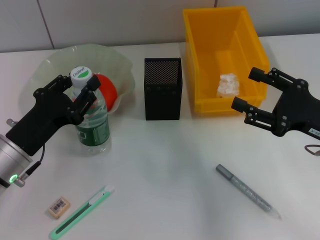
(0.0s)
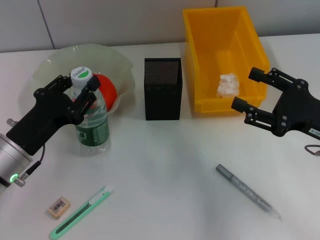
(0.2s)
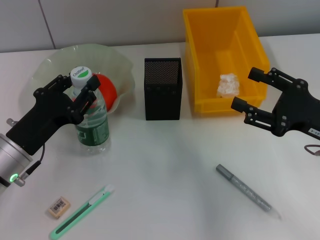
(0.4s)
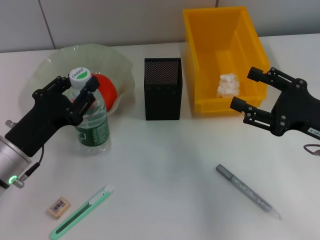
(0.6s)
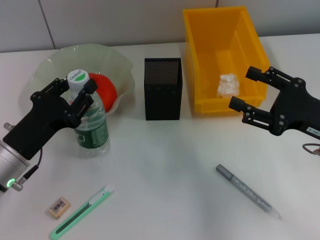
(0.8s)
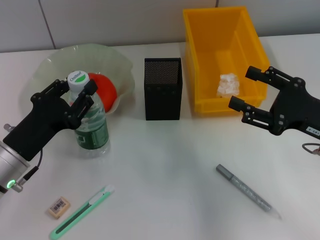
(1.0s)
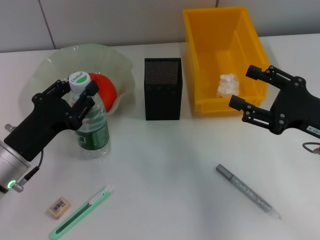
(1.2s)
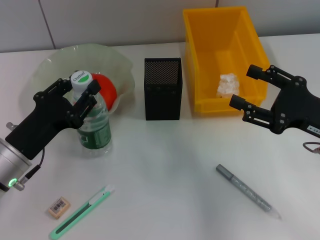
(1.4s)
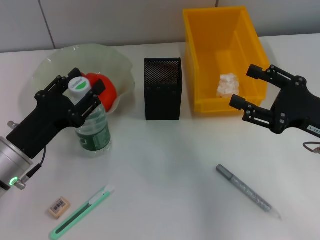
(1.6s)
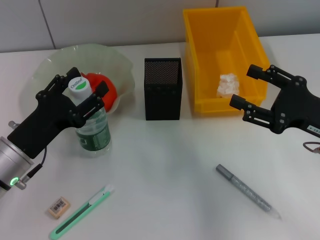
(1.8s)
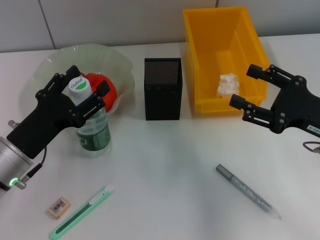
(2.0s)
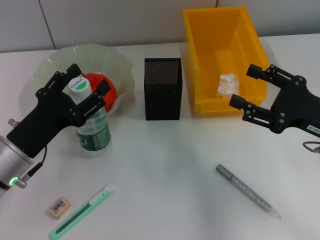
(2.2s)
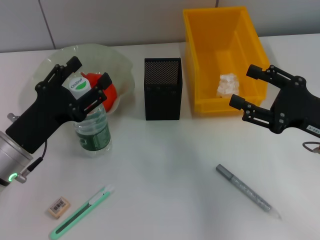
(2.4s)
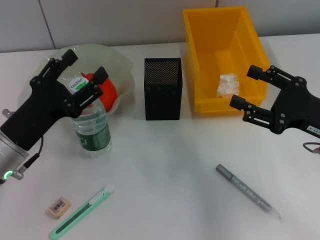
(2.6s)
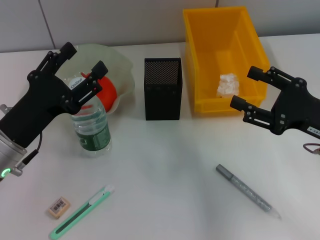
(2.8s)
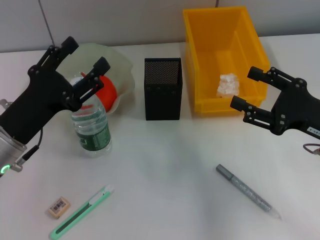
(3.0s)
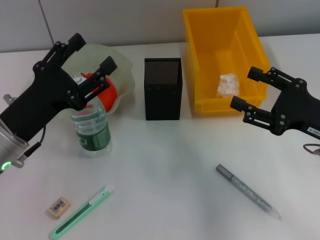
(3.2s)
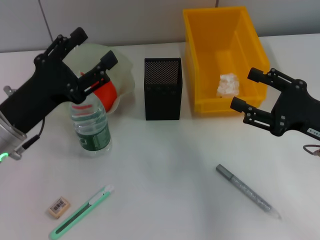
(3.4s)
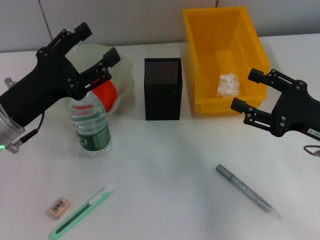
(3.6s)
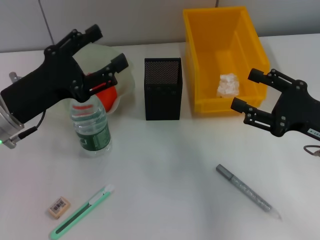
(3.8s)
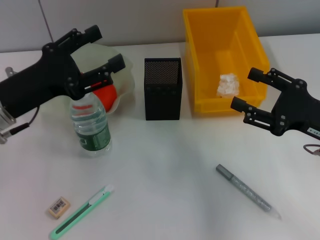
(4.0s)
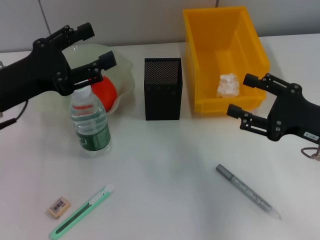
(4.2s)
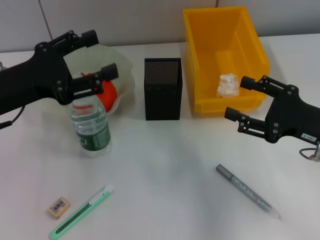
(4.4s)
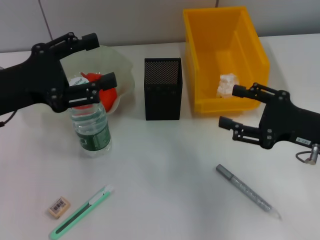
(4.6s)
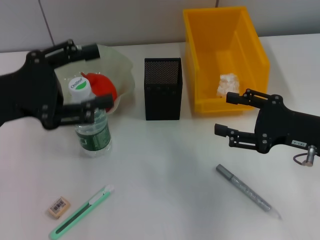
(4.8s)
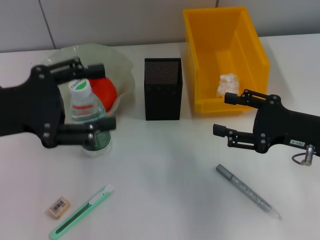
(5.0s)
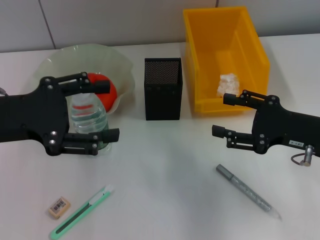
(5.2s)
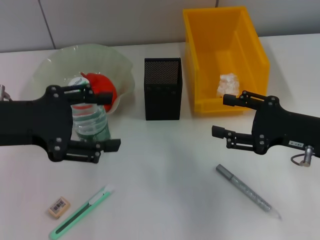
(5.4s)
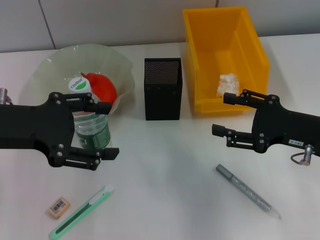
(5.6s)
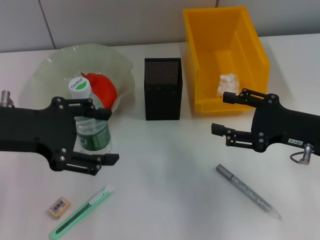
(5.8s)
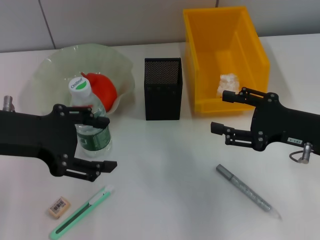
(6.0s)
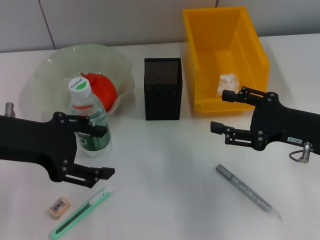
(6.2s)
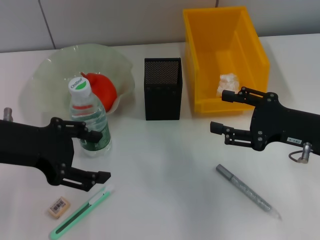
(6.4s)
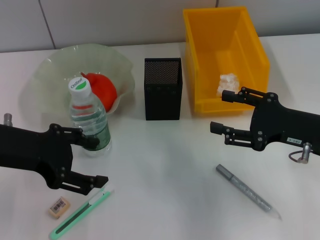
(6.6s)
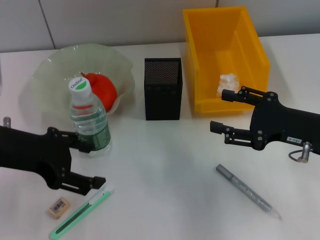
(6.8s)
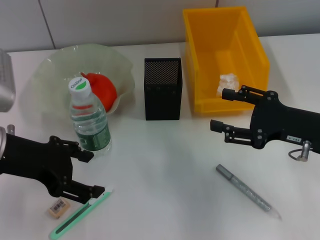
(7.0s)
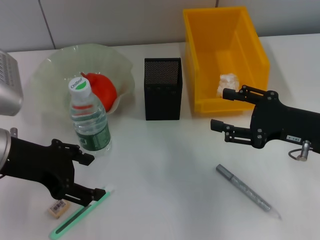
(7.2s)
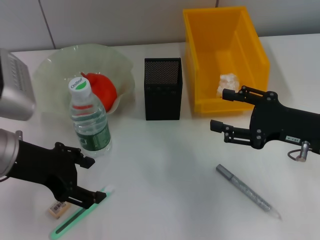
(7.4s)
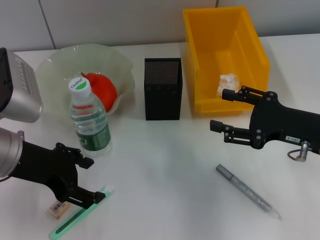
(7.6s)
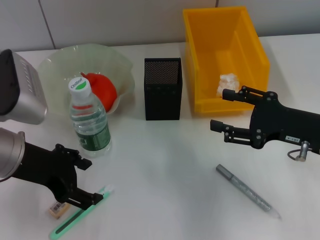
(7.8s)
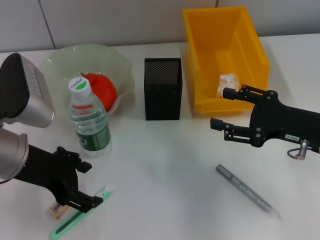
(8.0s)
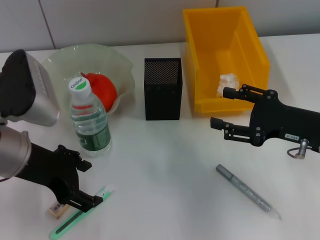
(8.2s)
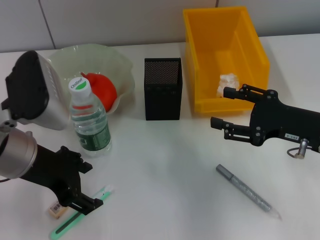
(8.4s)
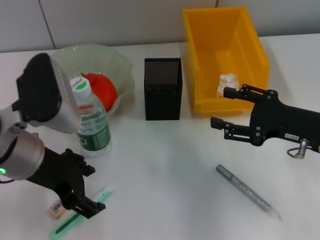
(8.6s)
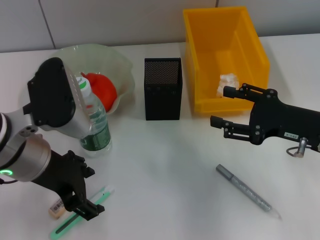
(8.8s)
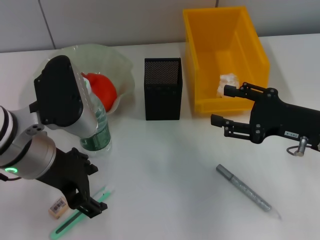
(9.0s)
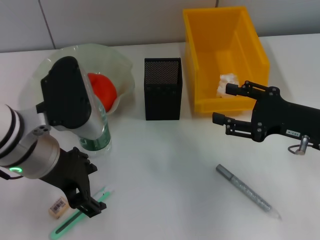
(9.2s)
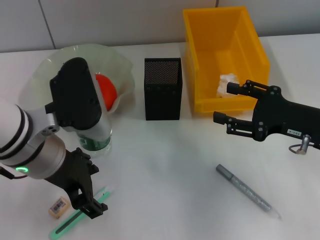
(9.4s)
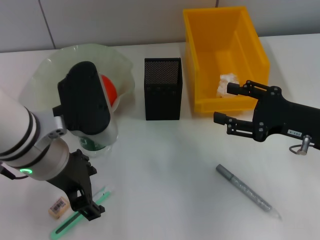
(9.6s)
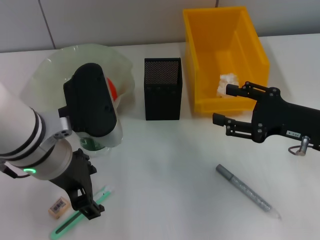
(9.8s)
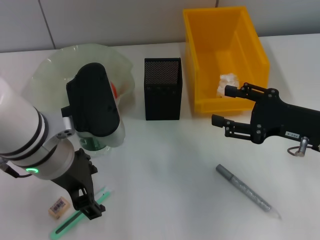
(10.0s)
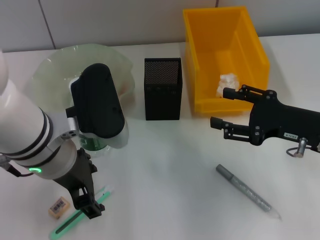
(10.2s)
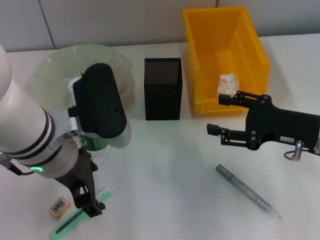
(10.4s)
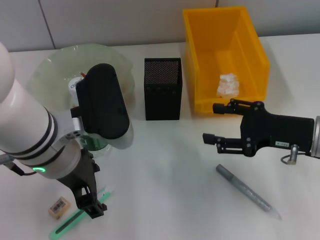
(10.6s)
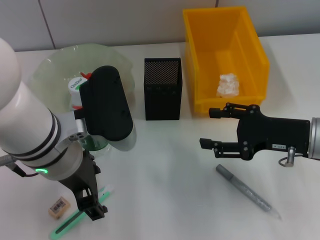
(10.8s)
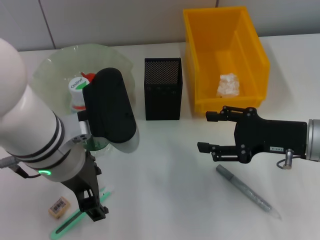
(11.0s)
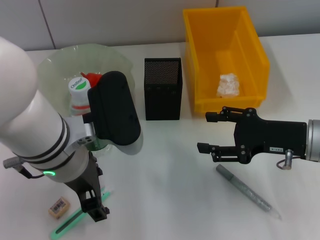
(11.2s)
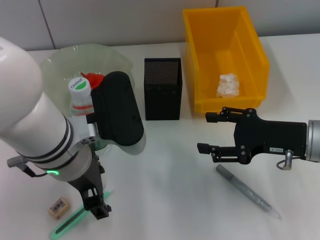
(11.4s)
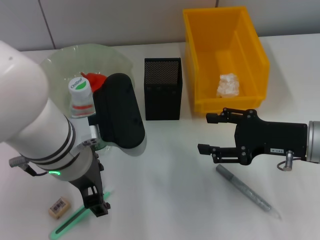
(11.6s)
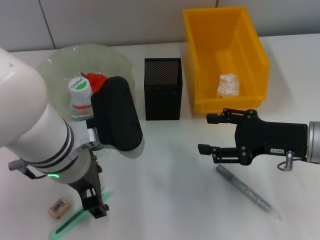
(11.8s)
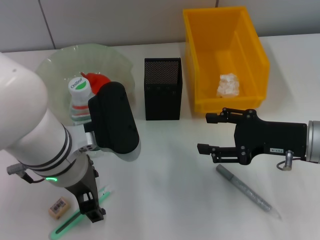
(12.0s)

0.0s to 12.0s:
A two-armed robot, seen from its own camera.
0.0s to 1.6s: Both grippers stay about where they are.
1.6s to 3.0s: The left gripper opens up.
3.0s to 4.4s: The left gripper shifts approximately 5 cm upward.
4.4s to 6.0s: The left gripper ends up some 5 cm from where it was.
7.6s to 9.0s: The left gripper shifts some 5 cm to the right.
9.0s to 12.0s: The grippers stay close to where they were, moving slightly.

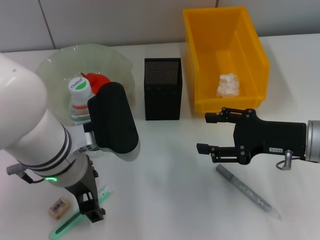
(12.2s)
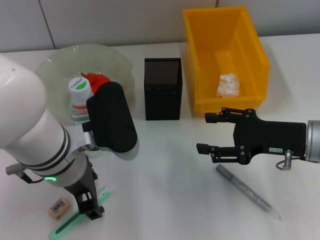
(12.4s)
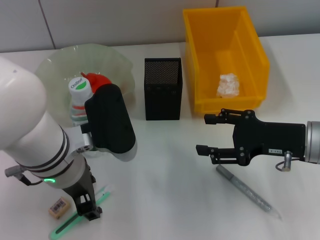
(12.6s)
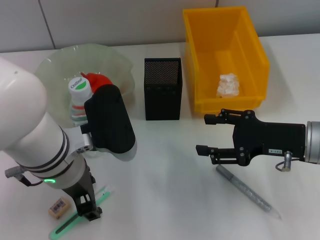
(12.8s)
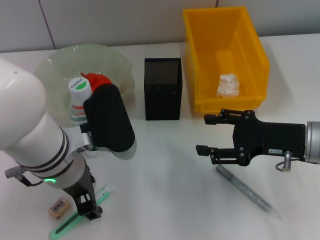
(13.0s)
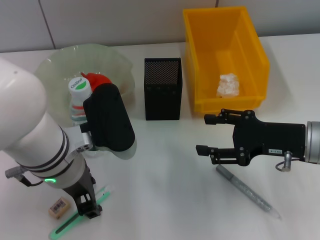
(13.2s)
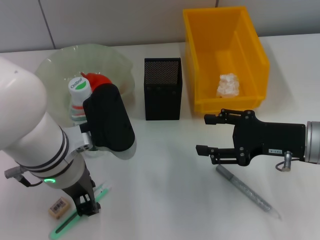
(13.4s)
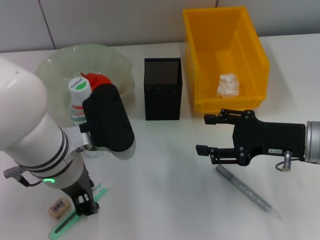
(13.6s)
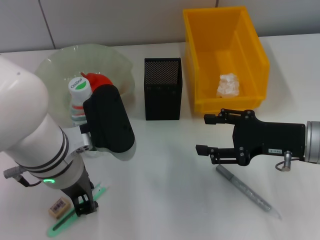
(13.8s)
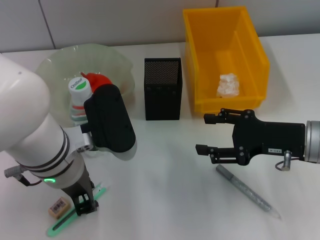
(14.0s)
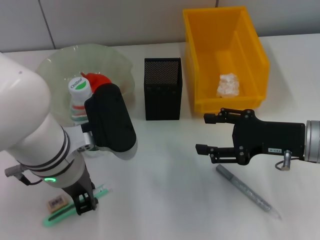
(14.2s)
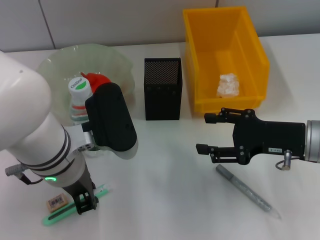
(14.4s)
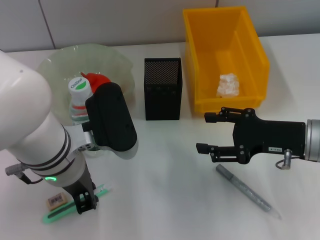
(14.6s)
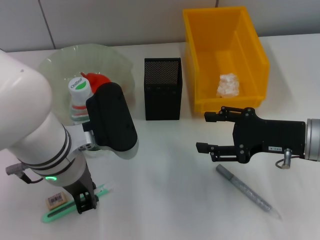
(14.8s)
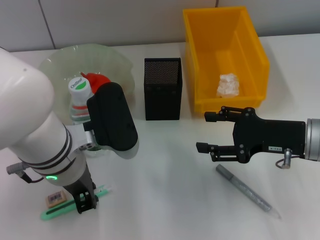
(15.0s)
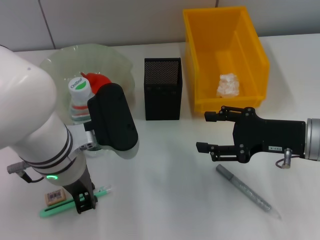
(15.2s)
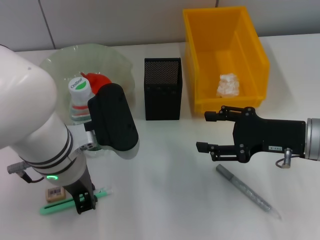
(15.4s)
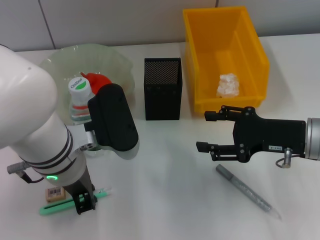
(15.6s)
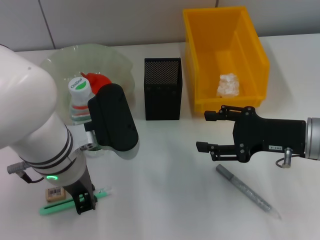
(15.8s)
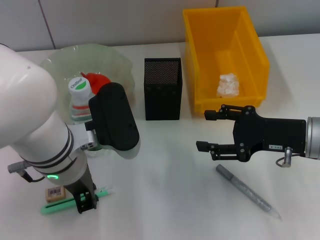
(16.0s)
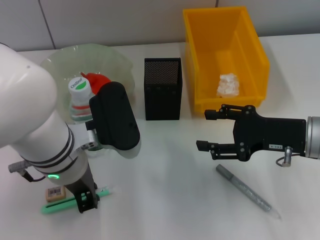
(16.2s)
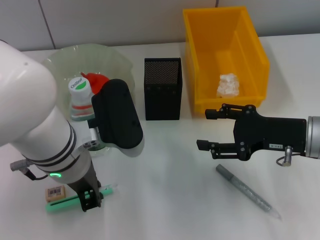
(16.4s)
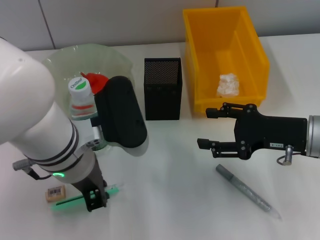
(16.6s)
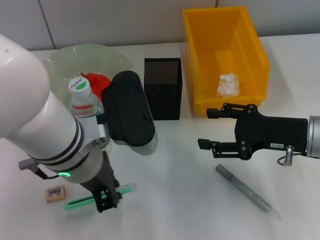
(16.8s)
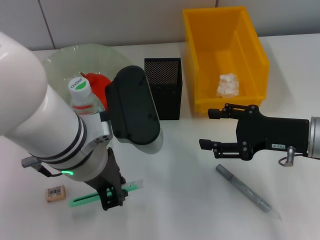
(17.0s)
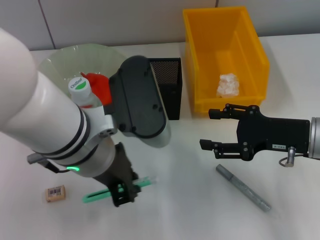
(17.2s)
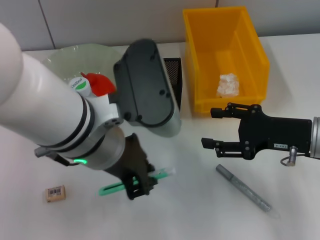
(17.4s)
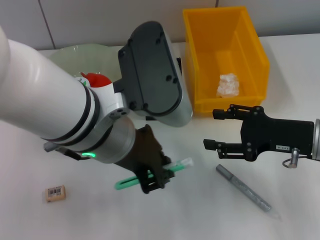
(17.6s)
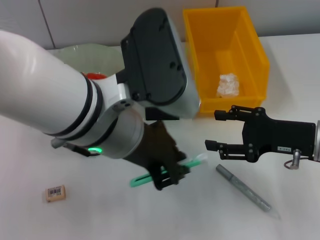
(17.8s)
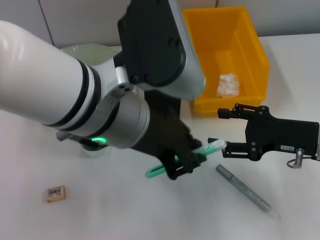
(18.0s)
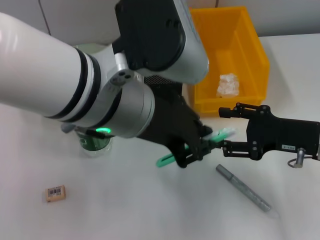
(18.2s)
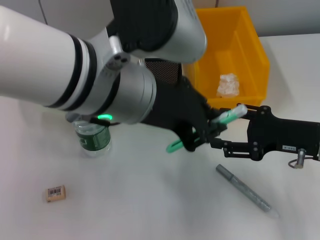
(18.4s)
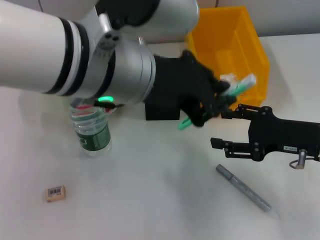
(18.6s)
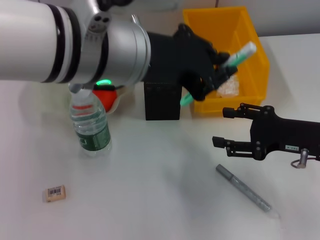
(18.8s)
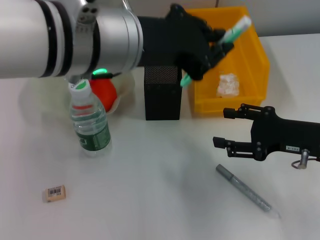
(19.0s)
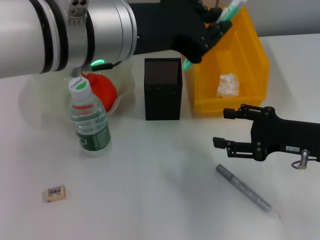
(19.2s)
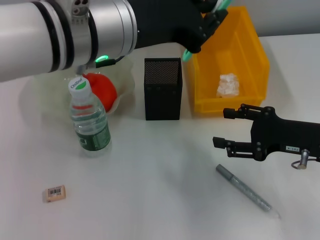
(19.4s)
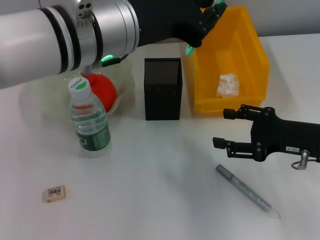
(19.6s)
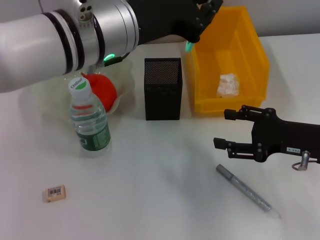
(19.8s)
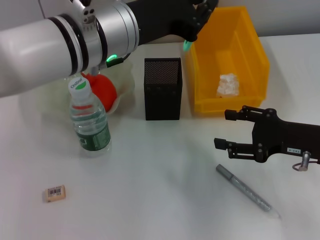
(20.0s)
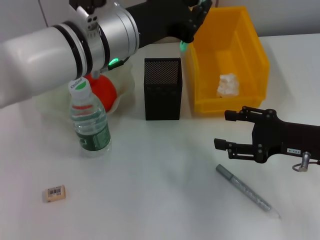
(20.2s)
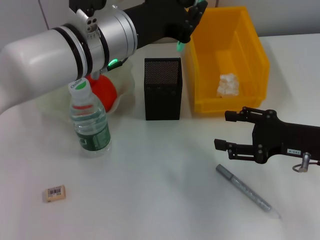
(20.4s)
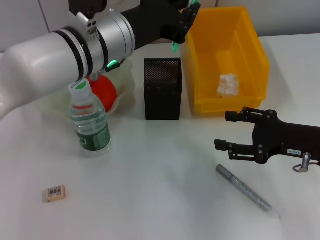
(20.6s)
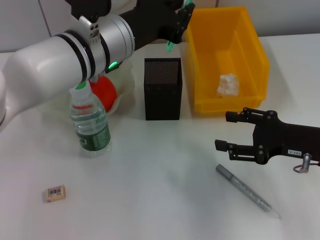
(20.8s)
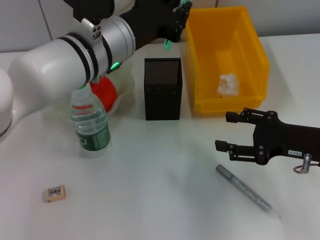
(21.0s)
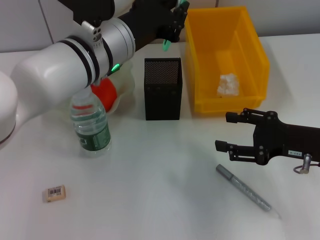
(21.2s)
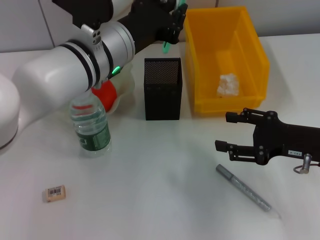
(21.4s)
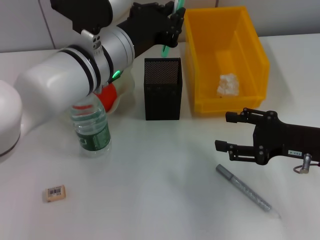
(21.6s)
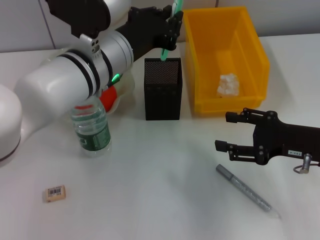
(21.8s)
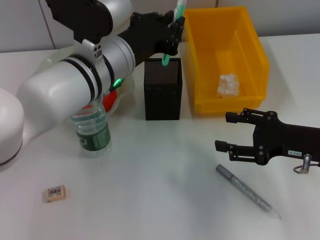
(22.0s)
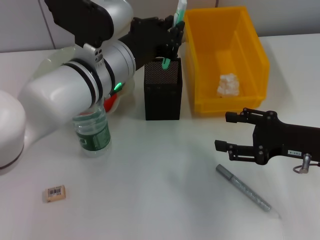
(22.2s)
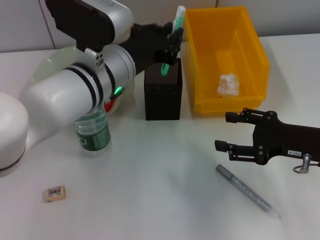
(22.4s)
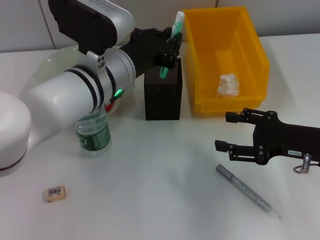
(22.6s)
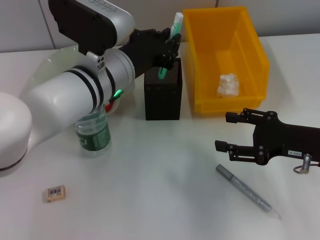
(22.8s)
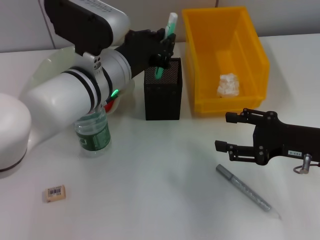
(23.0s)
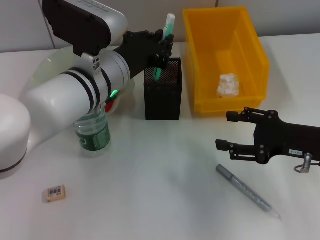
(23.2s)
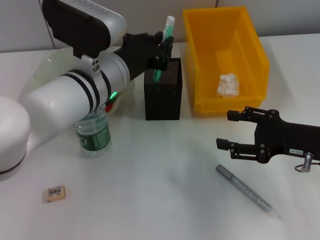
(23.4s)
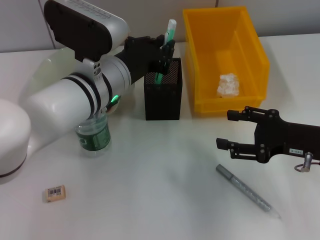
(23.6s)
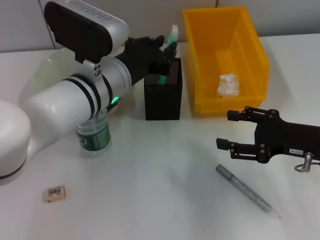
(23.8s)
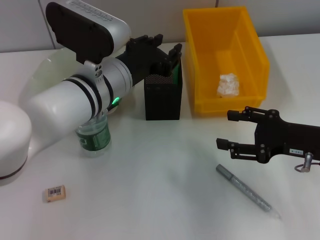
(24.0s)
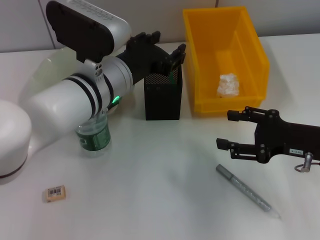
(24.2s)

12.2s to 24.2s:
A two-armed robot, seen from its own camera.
Step, 12.2s to 15.0s: Grab the blue utility knife with the left hand.
12.2s to 13.8s: The left gripper closes.
13.8s to 15.2s: The left gripper closes up.
15.2s to 16.6s: Both grippers stay put.
16.6s to 18.2s: The left gripper is displaced upward by roughly 10 cm.
18.2s to 19.8s: The left gripper goes some 5 cm forward.
19.8s to 21.2s: The left gripper moves roughly 5 cm.
21.2s to 22.6s: There are only small adjustments of the grippers.
22.6s to 24.2s: Both grippers stay about where they are.
